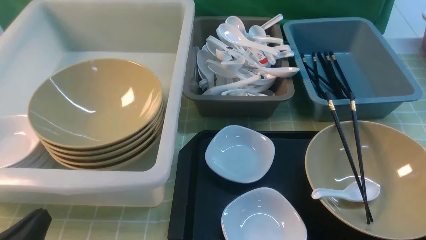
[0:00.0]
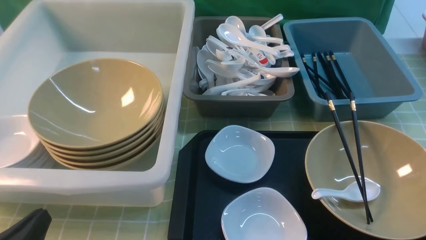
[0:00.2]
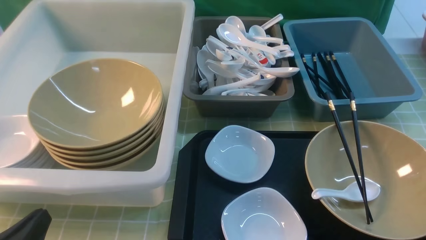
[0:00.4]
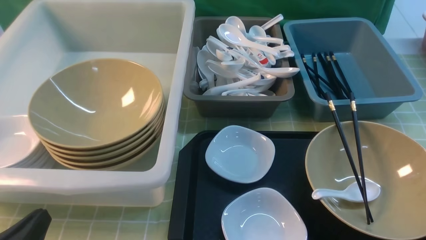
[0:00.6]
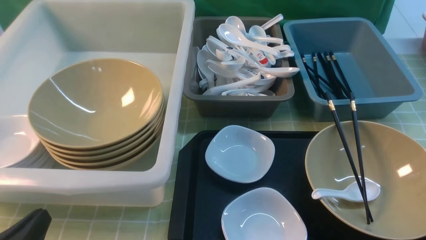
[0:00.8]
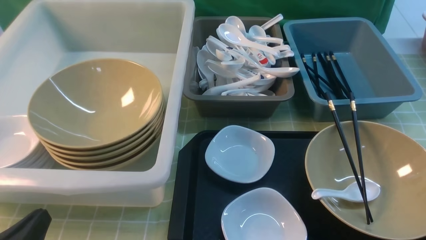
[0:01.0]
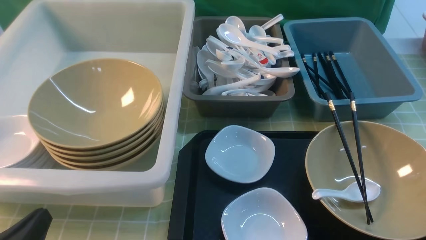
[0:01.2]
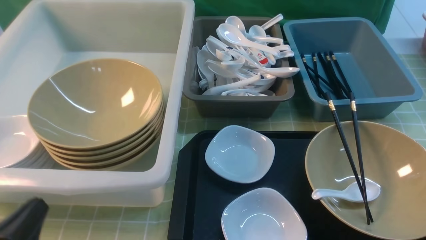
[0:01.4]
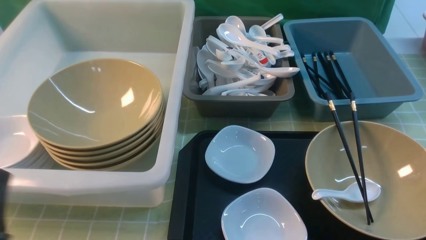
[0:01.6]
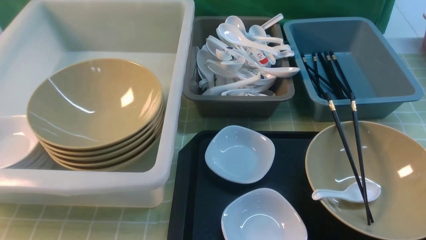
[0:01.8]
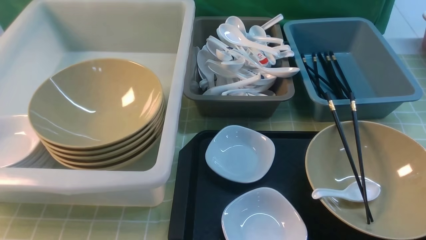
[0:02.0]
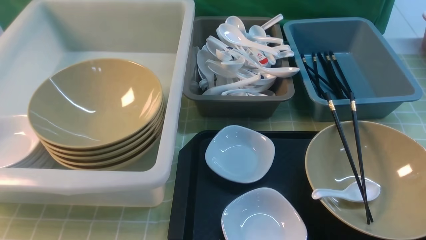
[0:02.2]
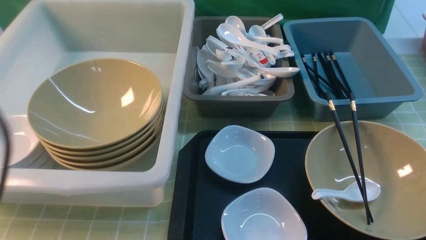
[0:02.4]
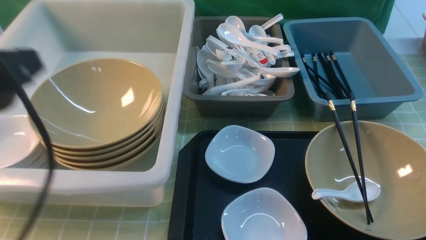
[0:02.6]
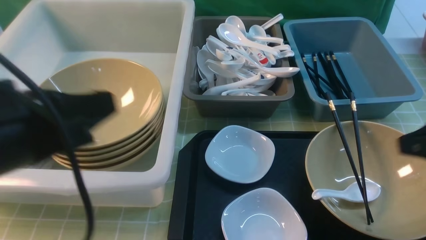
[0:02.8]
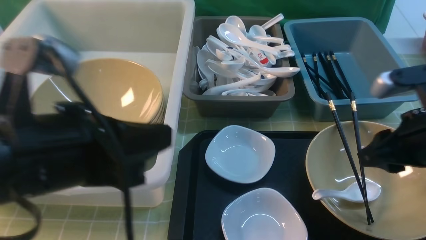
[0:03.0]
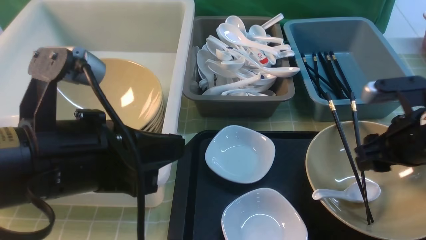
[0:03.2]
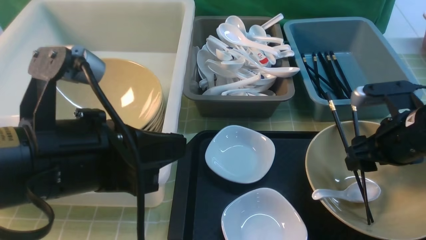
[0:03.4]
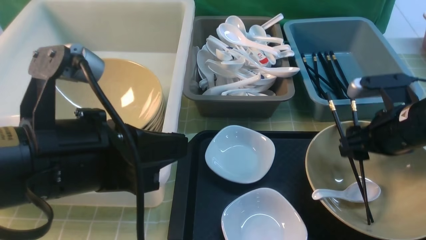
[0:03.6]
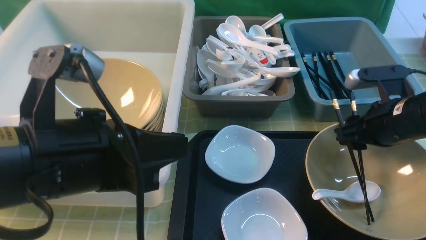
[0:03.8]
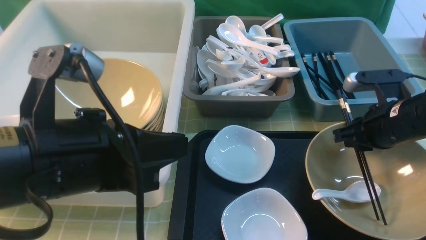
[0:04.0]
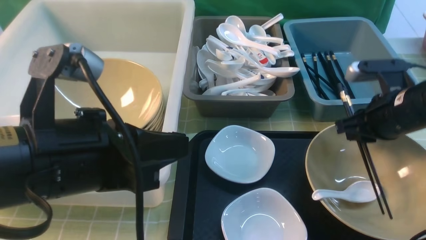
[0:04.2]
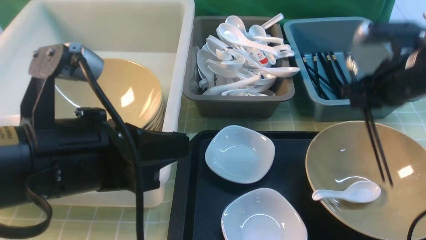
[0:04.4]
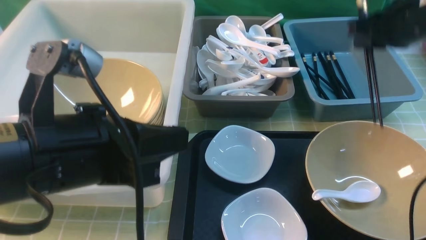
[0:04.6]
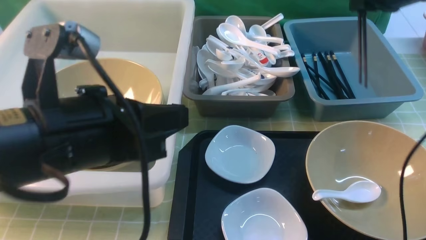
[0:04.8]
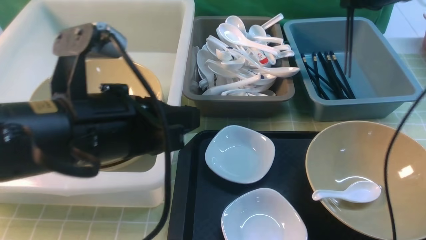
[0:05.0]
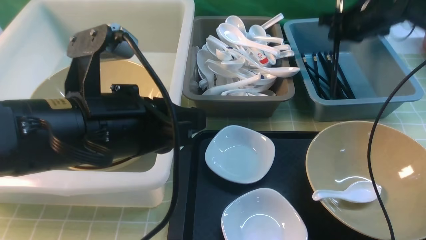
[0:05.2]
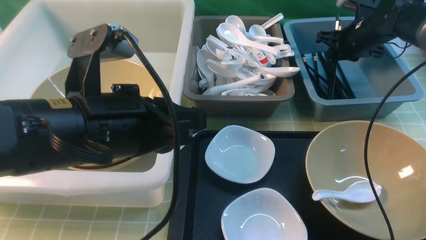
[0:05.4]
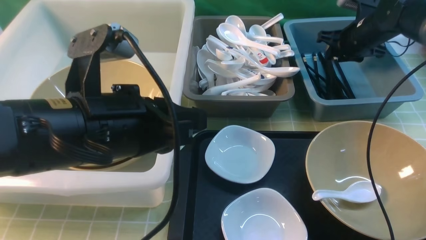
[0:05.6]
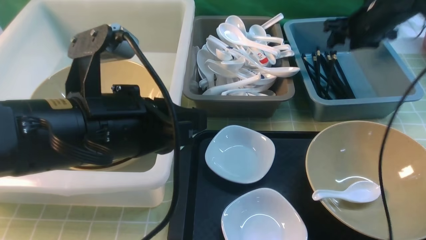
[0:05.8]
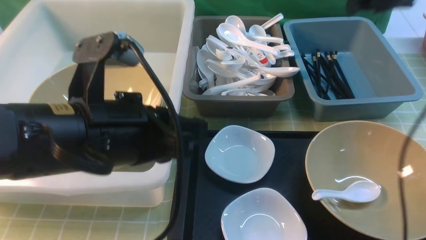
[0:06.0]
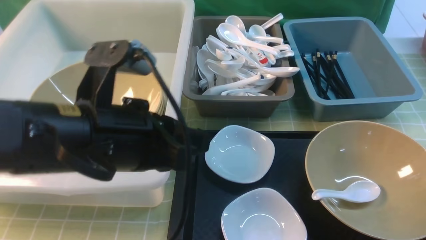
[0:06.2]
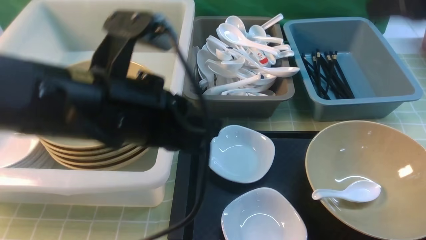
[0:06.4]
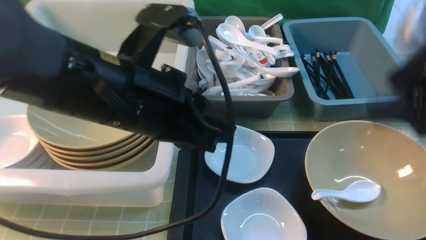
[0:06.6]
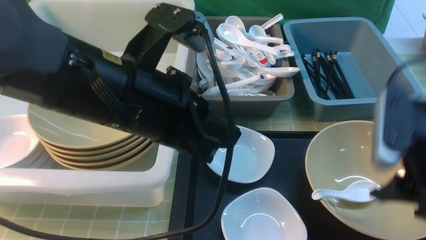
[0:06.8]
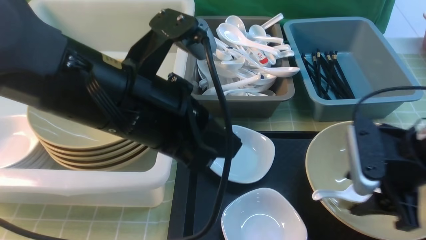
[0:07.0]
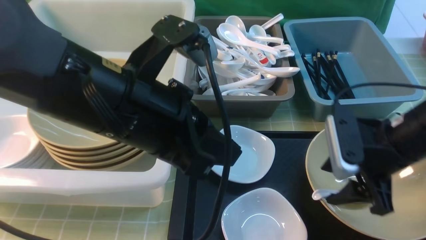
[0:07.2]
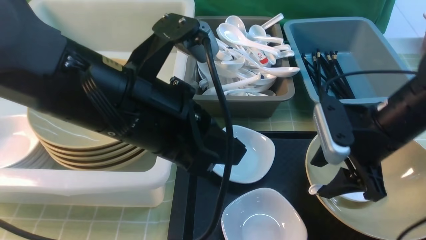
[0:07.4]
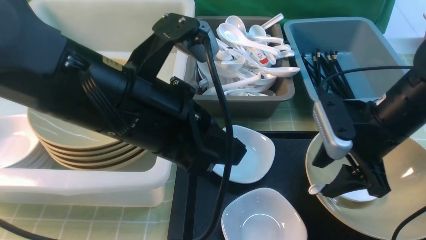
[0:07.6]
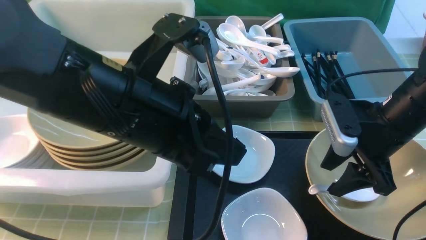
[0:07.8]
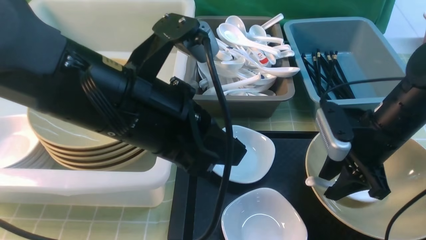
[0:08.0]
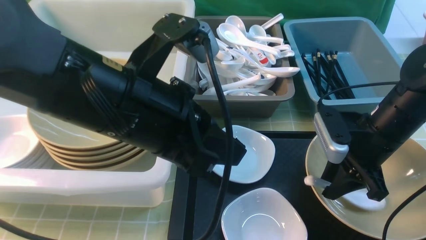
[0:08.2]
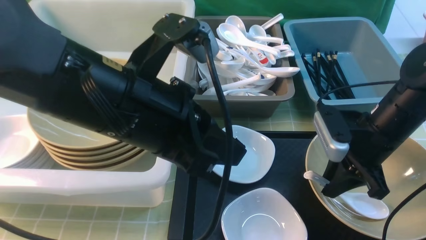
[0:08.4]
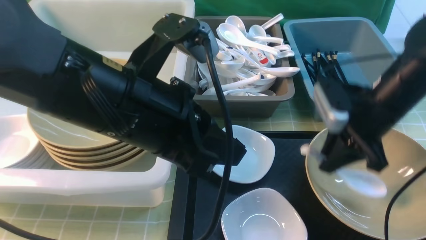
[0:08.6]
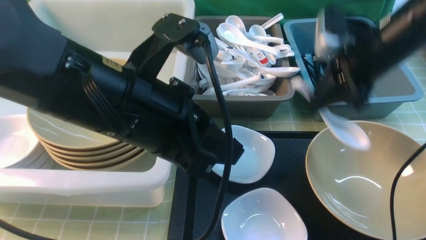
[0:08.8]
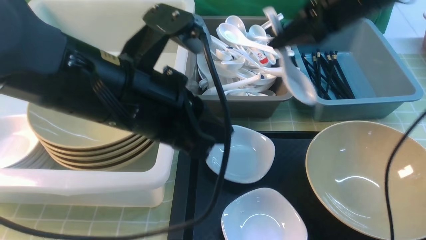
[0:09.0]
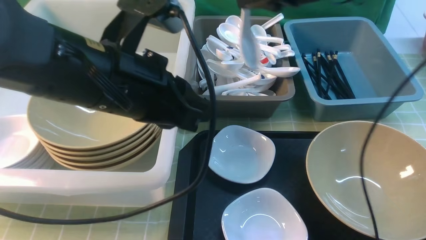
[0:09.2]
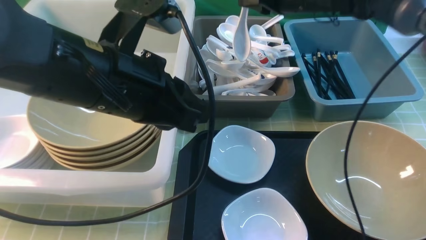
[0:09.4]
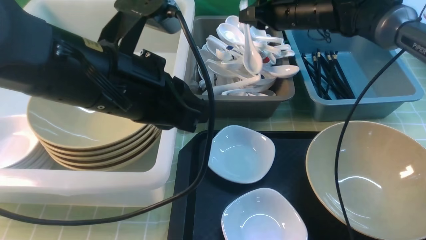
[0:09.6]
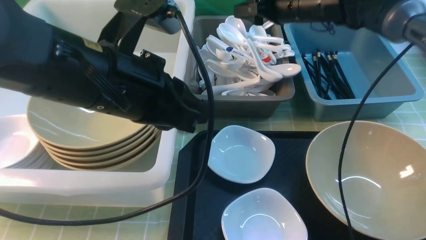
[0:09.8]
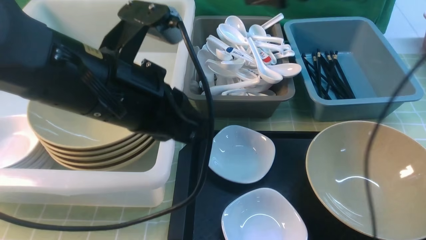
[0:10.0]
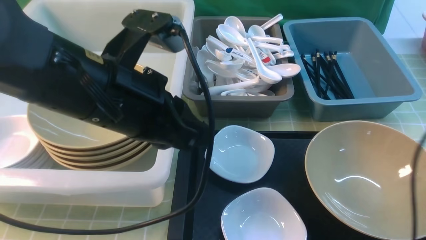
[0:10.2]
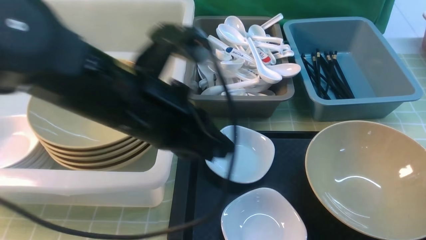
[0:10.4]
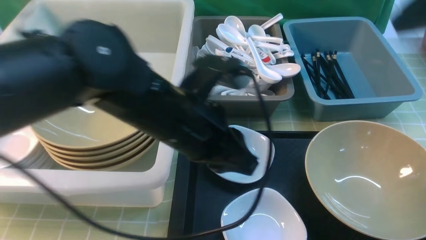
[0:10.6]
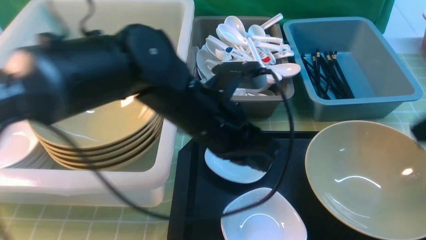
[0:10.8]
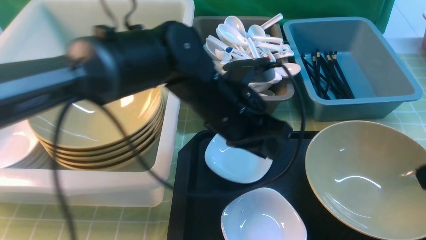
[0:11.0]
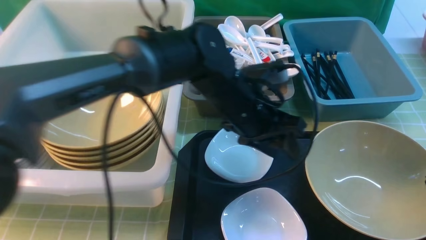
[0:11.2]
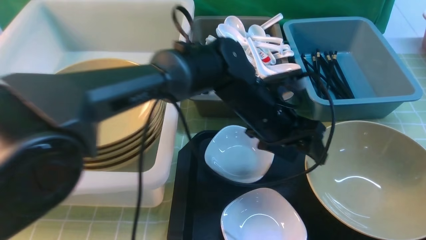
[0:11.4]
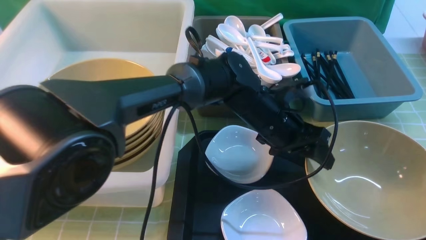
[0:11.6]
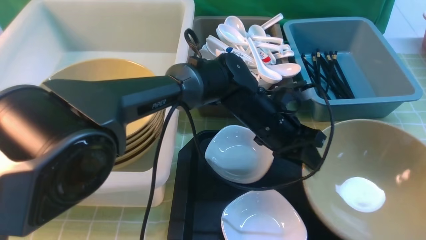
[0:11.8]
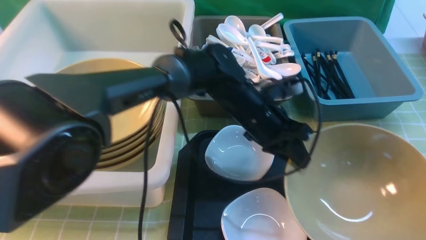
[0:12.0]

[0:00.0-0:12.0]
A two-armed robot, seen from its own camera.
Task of the whole recording: on green table put chopsticks spoon bowls plates into blue grey white boxes.
Step, 0:00.0 to 0:04.2: use the right arm to grab the chopsticks.
Step, 0:04.4 to 0:05.8: use the right arm to put the chopsticks into the small storage box on the right.
Step, 0:06.0 to 0:08.4: use the right arm to grab the soup spoon in the middle.
Step, 0:08.6 to 0:09.8: use the right arm to put the soup spoon into the small storage box in the middle.
0:01.6 to 0:03.0: The right gripper moves forward, roughly 20 cm. Meanwhile the left gripper shifts about 20 cm upward, to the right and forward.
0:03.0 to 0:04.4: The right gripper heads forward, covering roughly 10 cm, and closes.
0:04.4 to 0:06.0: The right gripper travels upward and forward by approximately 10 cm, and opens its fingers.
0:06.0 to 0:07.6: The right gripper heads downward, backward and to the left, covering approximately 20 cm.
0:07.6 to 0:09.0: The right gripper heads forward and upward, covering roughly 15 cm, and closes.
0:09.0 to 0:10.4: The right gripper moves upward, backward and to the right, about 20 cm, and opens its fingers.
0:10.4 to 0:12.0: The right gripper heads backward and downward, covering approximately 20 cm, and closes up, while the left gripper travels forward, to the right and downward by approximately 20 cm, and opens and closes again.

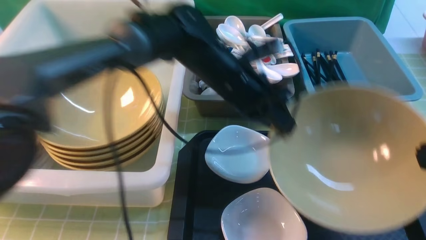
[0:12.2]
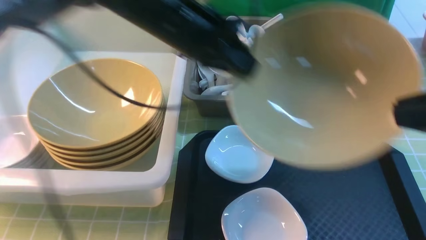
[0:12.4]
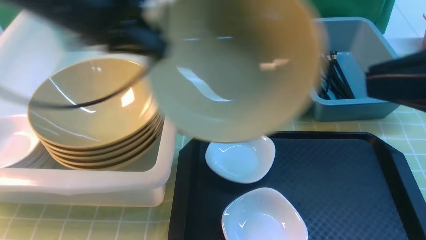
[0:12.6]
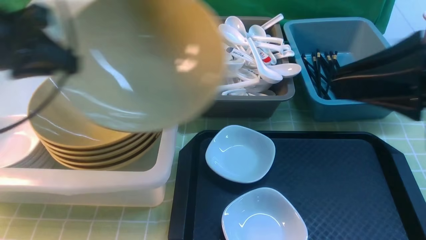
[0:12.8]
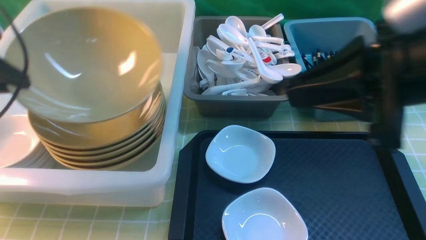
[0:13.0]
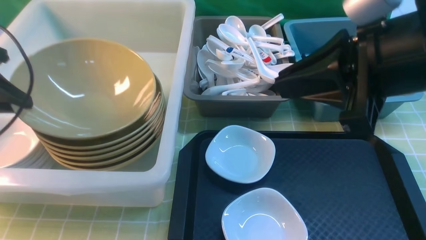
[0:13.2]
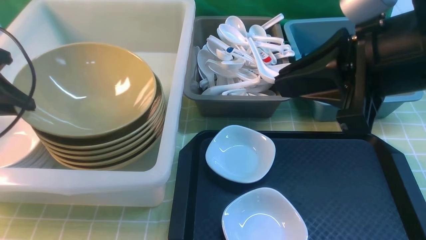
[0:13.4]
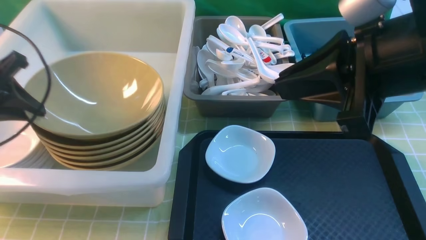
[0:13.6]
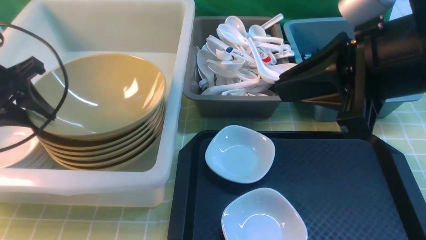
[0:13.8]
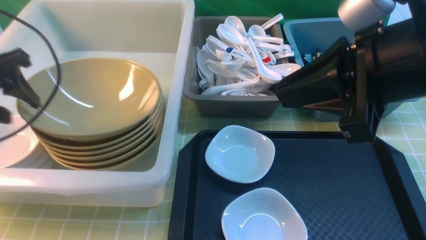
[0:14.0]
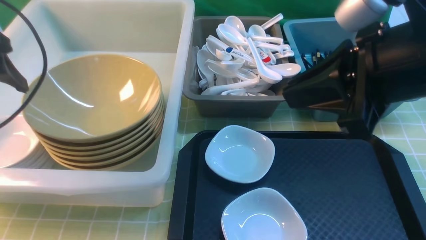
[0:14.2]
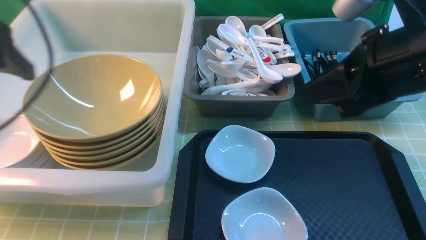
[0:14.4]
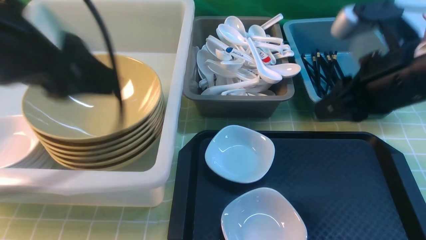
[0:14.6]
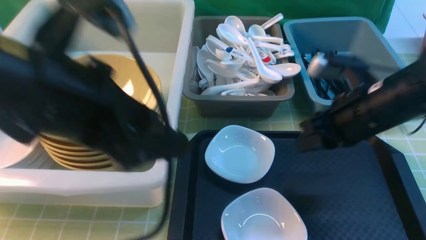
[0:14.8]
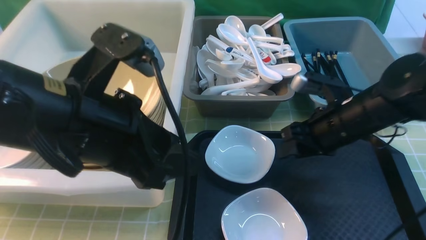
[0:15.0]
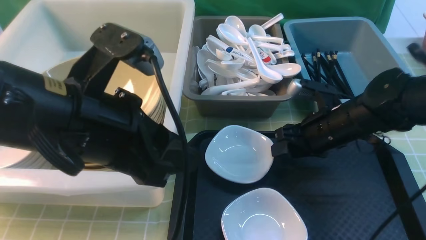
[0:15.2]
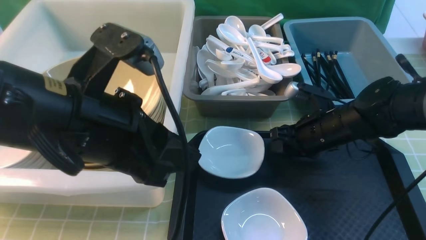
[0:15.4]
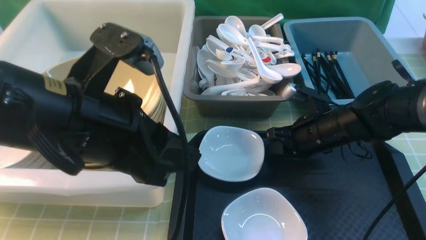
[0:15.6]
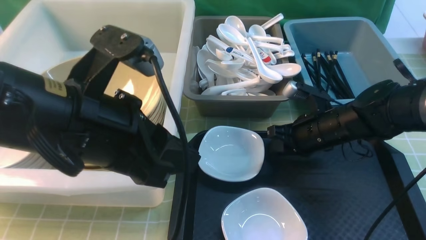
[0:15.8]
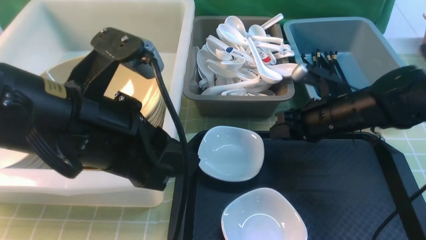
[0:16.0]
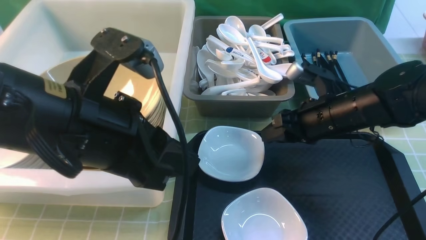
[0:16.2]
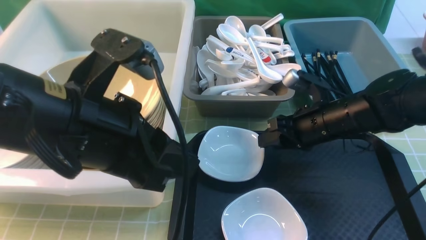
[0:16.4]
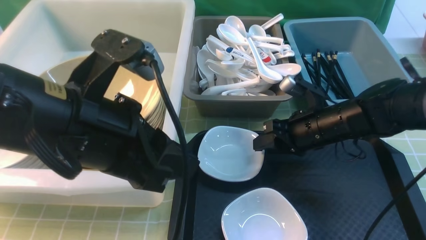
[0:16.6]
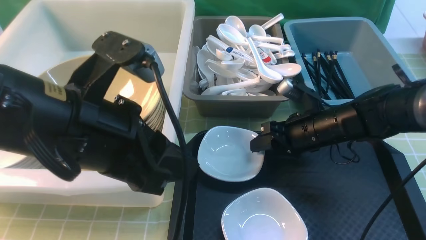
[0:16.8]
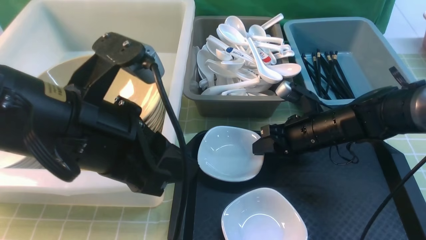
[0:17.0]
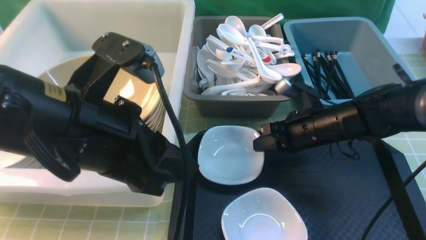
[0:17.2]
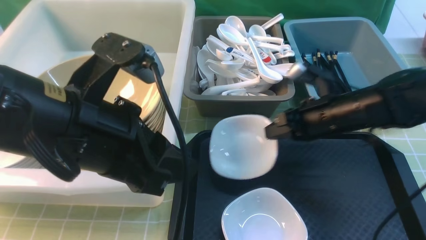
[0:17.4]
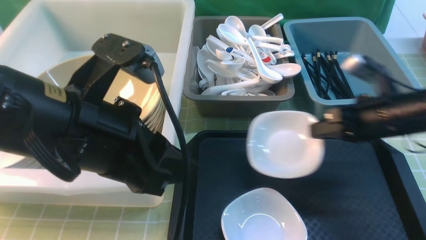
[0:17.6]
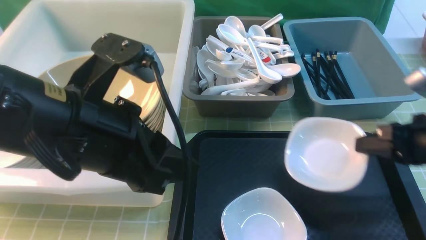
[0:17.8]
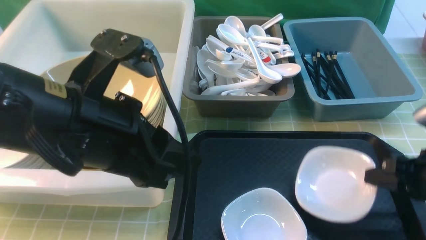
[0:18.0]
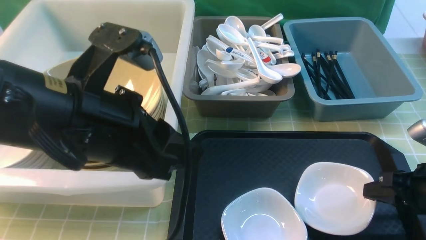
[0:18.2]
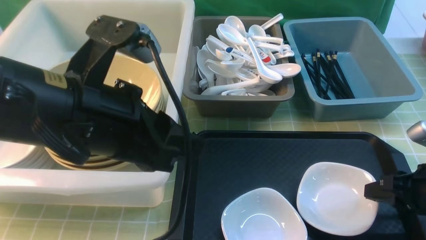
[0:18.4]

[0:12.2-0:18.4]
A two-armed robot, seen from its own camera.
Task of the whole recording: on green table put chopsticks spoon bowls plates into blue grey white boxes.
Step, 0:12.2 to 0:14.0: use the left arm to put the noodle bowl into the large storage box on the left.
Step, 0:14.2 to 0:17.6: use the right arm to grab the plate.
0:12.2 to 0:13.8: The left gripper travels to the left by some 30 cm, and opens up, while the right gripper is displaced to the left and forward by approximately 15 cm.
0:13.8 to 0:15.4: The right gripper moves downward and forward, roughly 30 cm, and opens. Meanwhile the left gripper moves to the right and backward, roughly 25 cm, and opens, then closes again.
0:15.4 to 0:16.8: The grippers move only a little.
0:16.8 to 0:18.4: The right gripper heads backward and to the right, covering some 20 cm.
